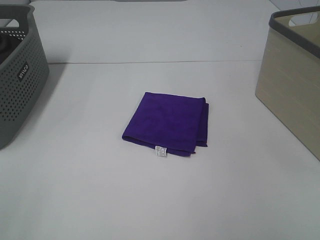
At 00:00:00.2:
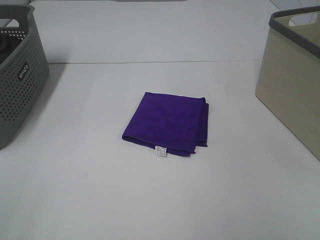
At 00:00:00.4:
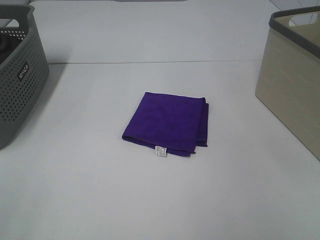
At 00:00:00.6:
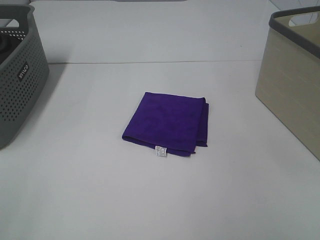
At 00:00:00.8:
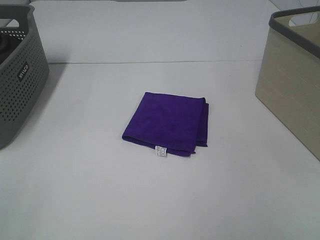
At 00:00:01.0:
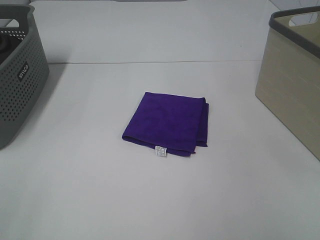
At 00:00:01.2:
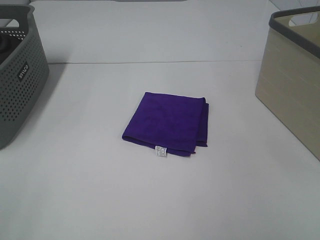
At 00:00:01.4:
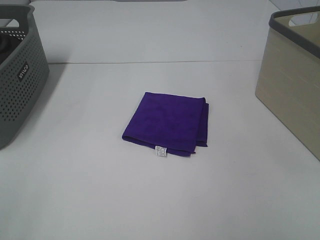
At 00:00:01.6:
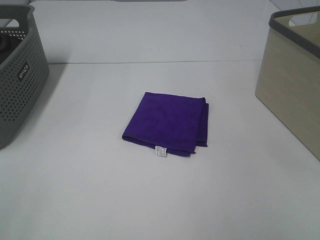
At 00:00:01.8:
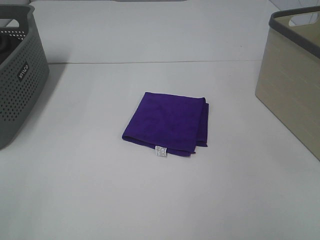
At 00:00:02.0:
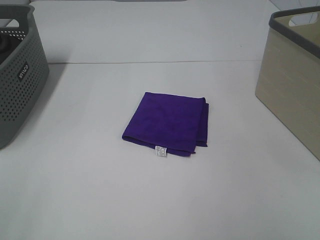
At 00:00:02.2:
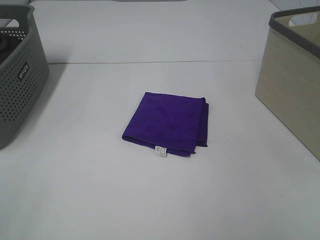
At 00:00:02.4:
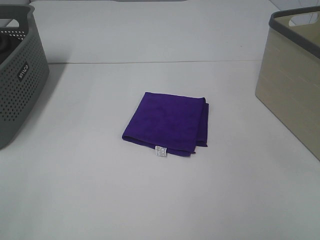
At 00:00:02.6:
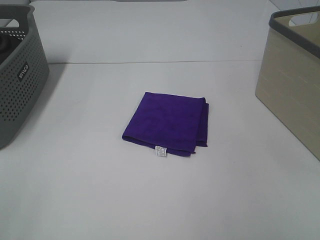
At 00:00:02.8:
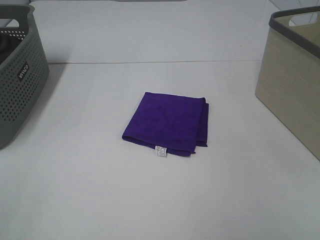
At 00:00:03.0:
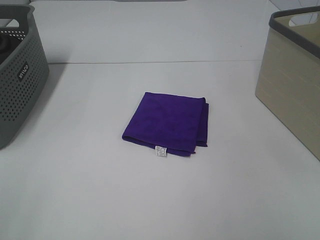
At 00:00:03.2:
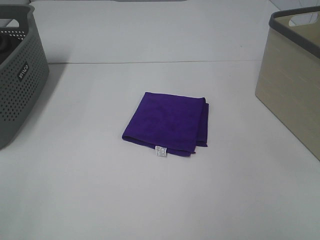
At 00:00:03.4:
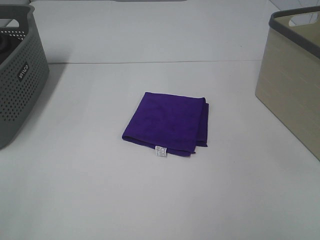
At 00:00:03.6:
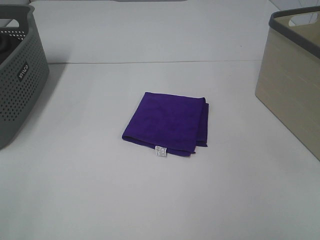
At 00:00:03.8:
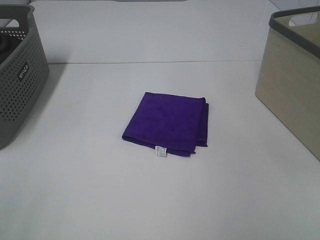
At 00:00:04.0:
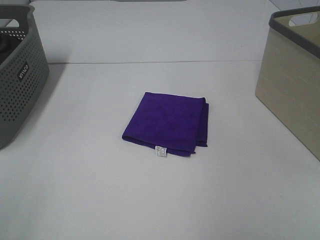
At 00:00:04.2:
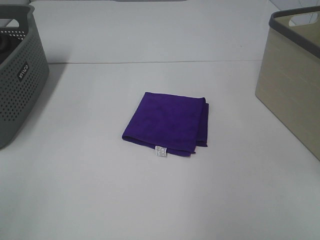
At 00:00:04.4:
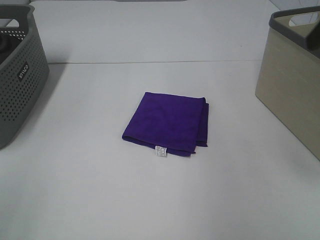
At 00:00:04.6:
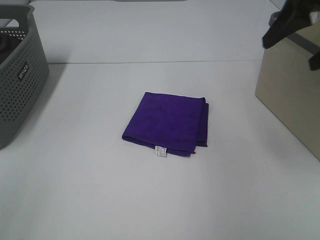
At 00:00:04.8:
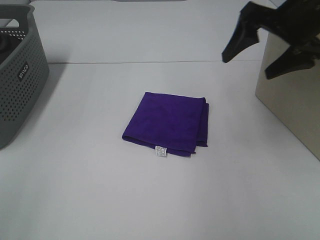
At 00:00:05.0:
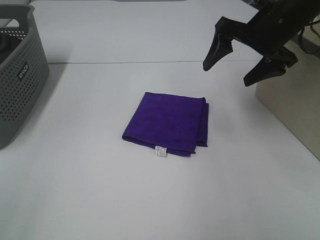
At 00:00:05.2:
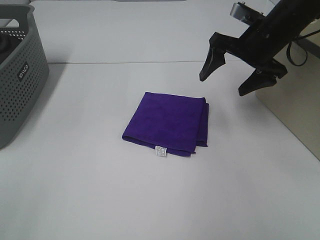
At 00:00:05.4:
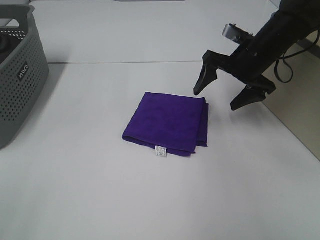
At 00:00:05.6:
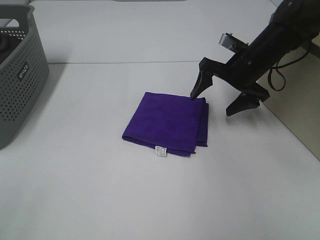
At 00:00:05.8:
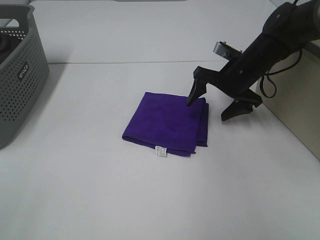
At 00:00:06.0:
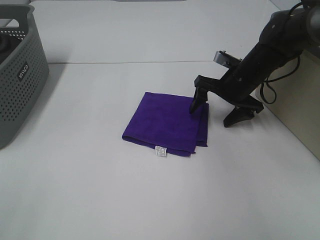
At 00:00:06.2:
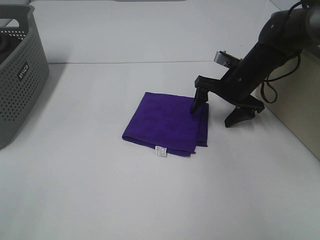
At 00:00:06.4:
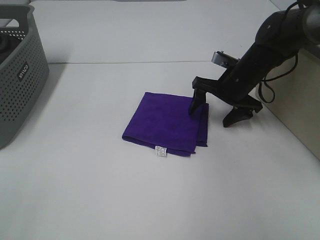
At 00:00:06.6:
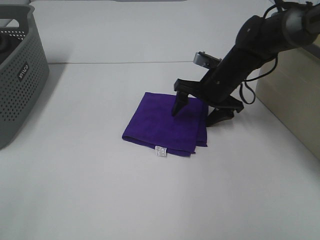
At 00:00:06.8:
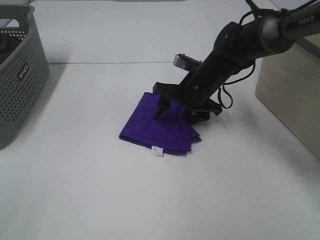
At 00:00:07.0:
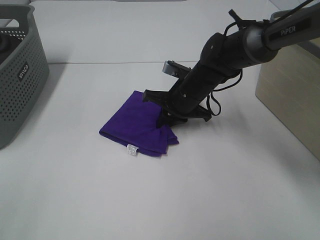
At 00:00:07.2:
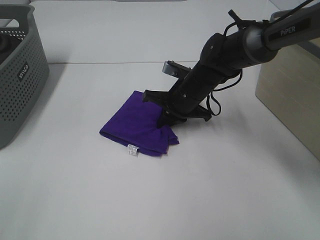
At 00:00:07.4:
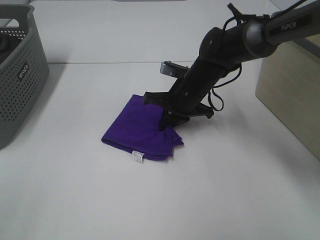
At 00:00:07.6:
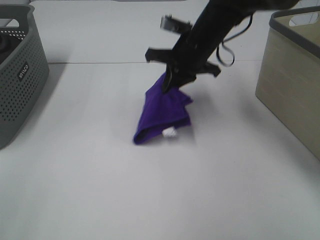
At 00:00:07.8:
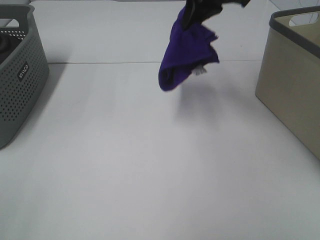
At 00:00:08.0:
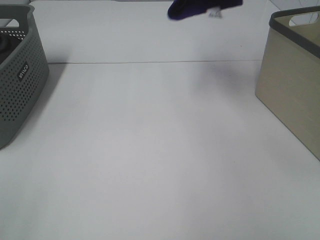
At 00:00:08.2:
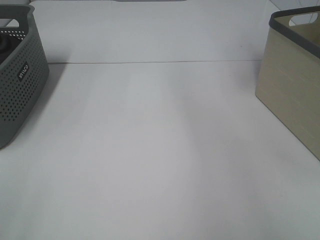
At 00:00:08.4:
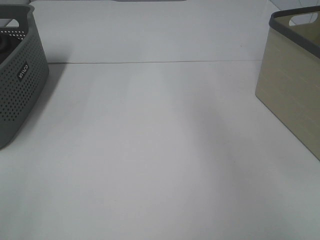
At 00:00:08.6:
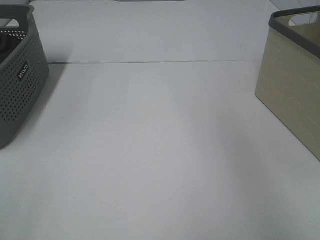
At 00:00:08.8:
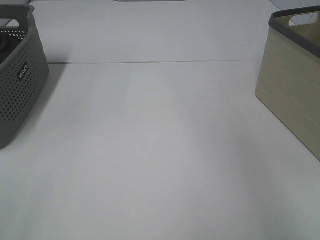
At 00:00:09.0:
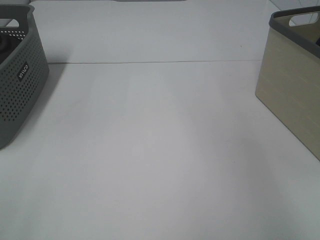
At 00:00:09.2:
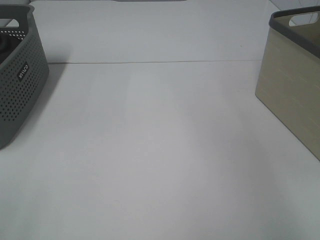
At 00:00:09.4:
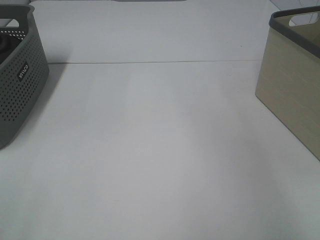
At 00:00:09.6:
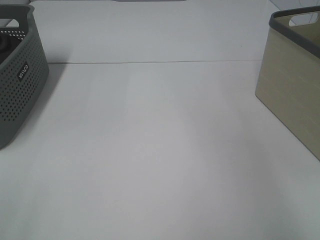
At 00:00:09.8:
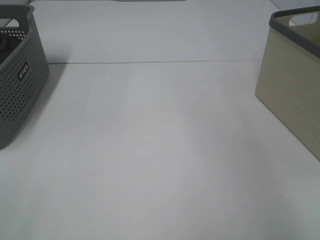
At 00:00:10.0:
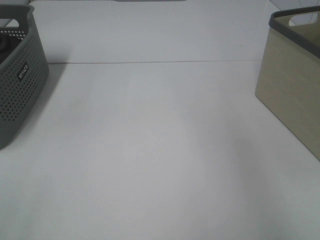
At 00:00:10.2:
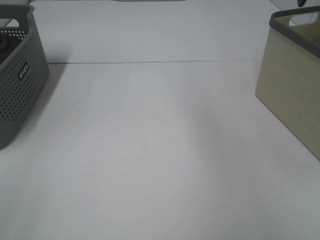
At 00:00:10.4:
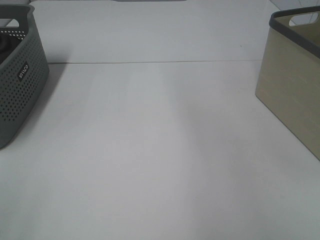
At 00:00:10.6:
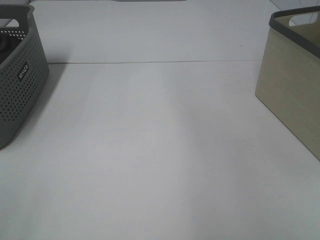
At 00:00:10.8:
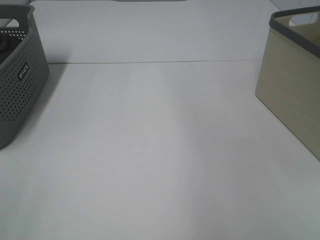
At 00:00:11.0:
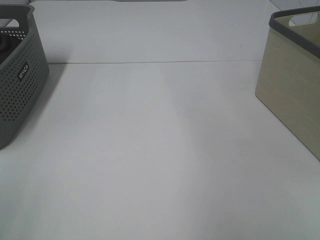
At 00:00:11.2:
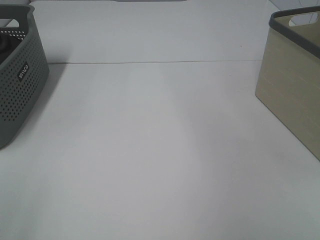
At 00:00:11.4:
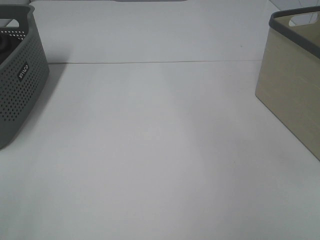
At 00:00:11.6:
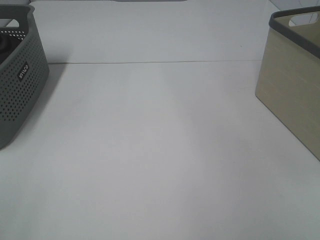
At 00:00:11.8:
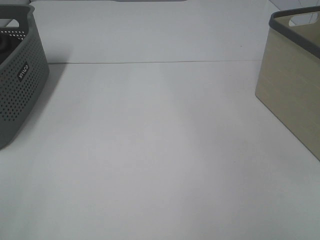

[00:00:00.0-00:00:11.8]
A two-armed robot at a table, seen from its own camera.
Step, 00:00:00.0 to 00:00:07.2: Right hand: grab the folded purple towel.
Step, 00:00:07.4 to 00:00:09.6: Right hand: place the purple towel in right basket.
00:00:00.0 to 00:00:03.0: Neither gripper changes place.
00:00:04.4 to 00:00:06.0: The right gripper travels downward and forward by roughly 30 cm.
00:00:06.0 to 00:00:07.4: The right gripper is displaced to the left by about 10 cm, and closes its fingers.
00:00:07.4 to 00:00:08.8: The right gripper heads to the right and upward, covering some 40 cm.

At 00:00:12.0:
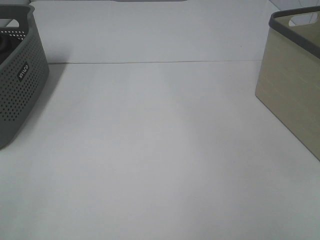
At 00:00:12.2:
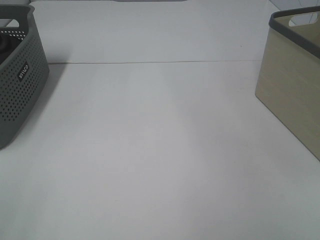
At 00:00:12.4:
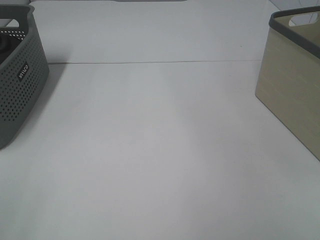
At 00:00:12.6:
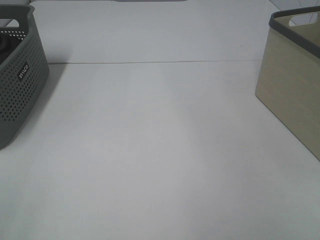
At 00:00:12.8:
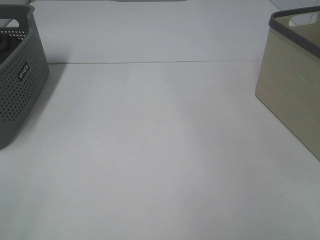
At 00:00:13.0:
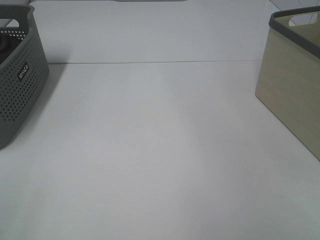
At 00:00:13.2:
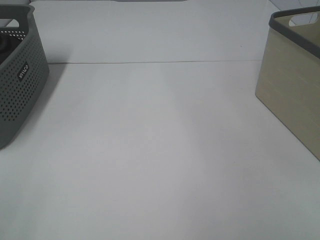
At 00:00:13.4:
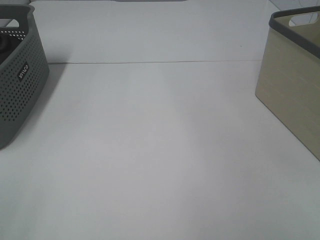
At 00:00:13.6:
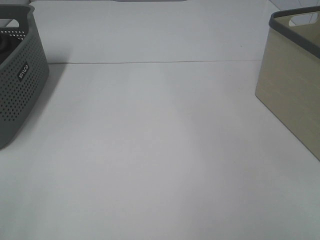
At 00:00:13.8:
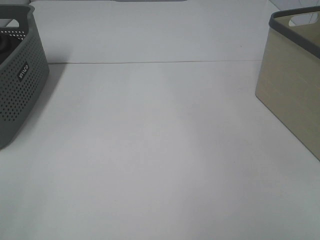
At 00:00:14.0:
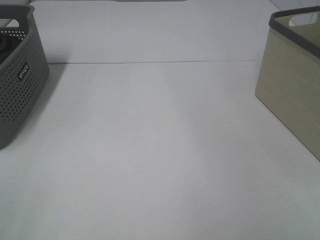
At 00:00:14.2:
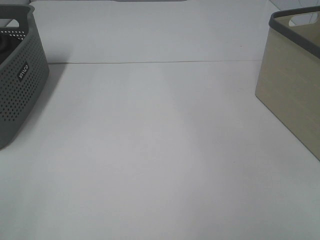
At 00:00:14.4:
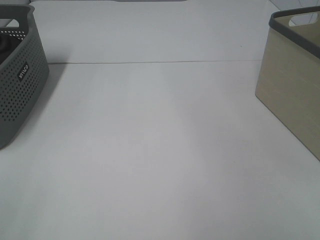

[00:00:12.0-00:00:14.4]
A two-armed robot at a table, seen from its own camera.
00:00:13.2 to 00:00:14.4: Neither gripper changes place.
